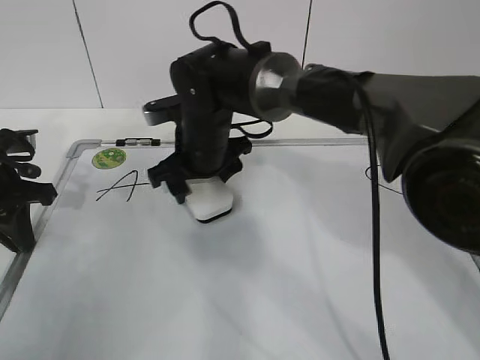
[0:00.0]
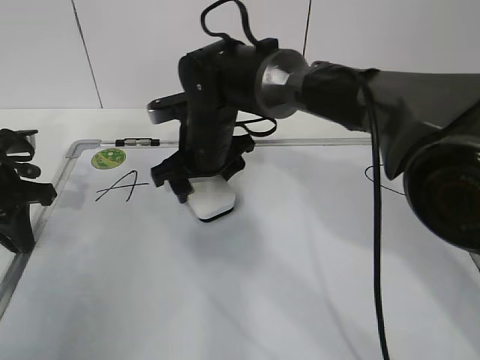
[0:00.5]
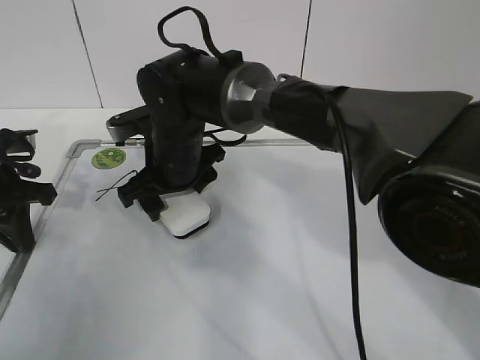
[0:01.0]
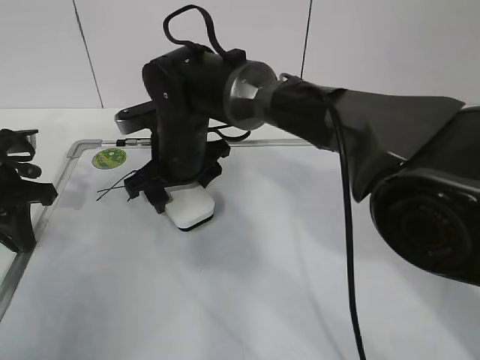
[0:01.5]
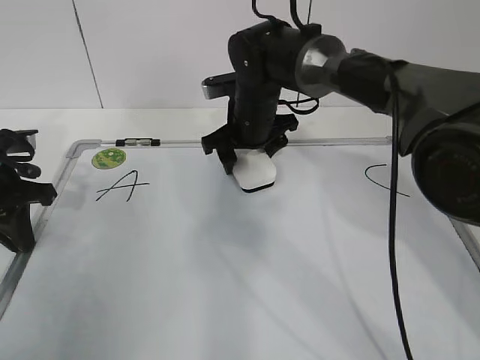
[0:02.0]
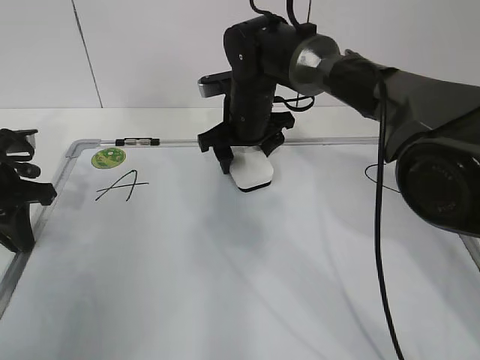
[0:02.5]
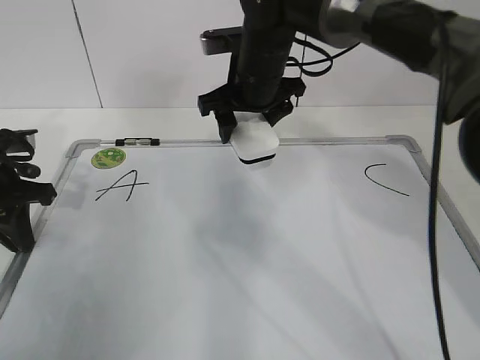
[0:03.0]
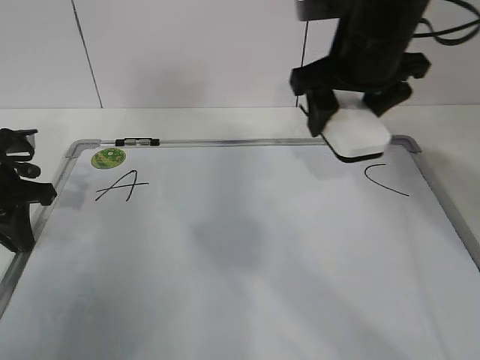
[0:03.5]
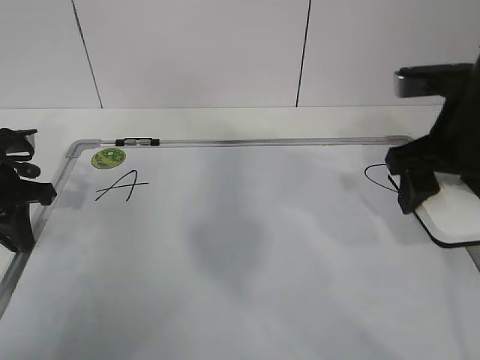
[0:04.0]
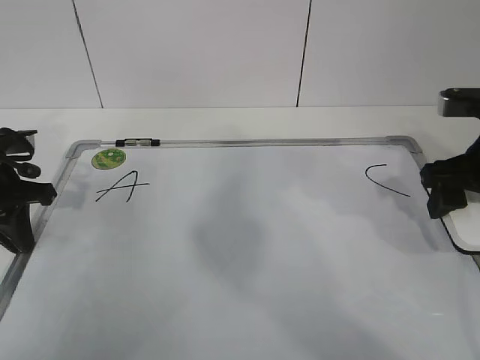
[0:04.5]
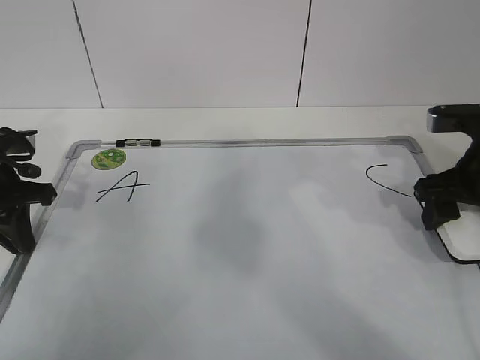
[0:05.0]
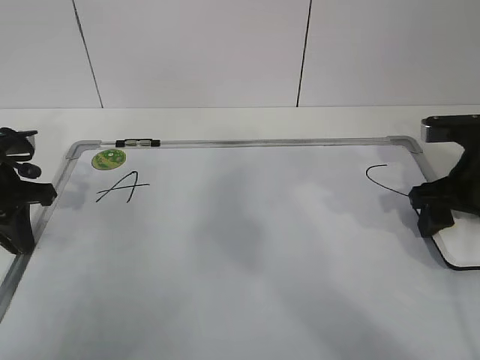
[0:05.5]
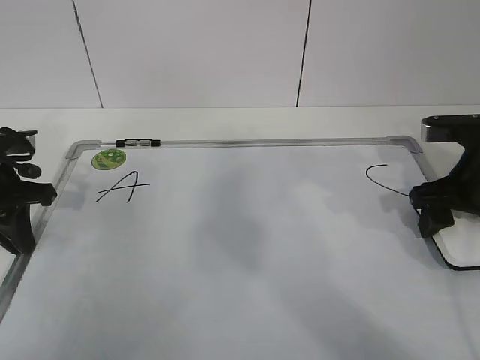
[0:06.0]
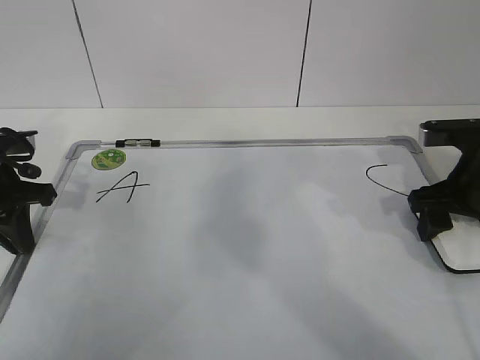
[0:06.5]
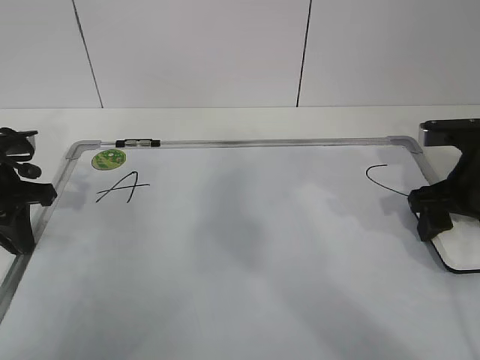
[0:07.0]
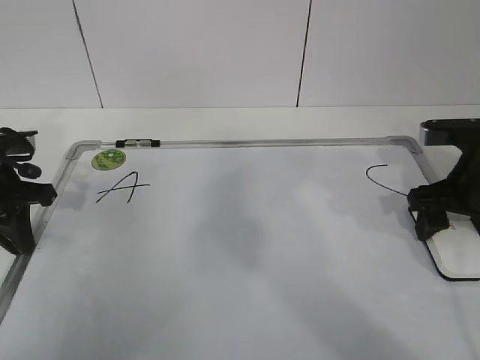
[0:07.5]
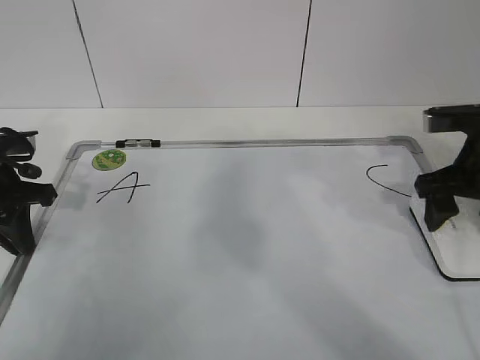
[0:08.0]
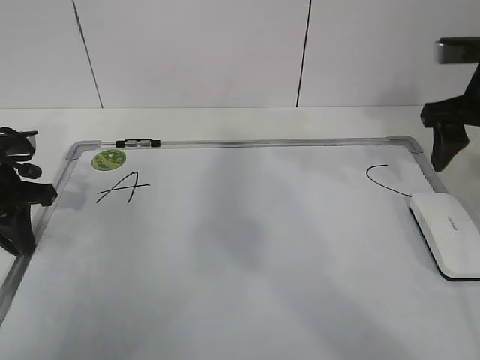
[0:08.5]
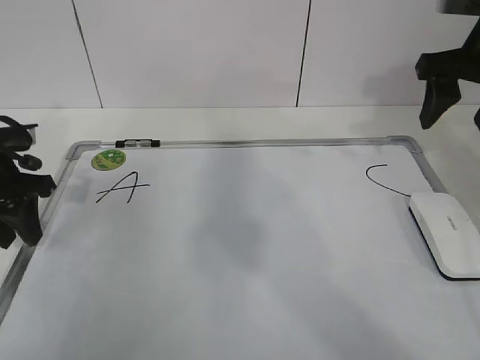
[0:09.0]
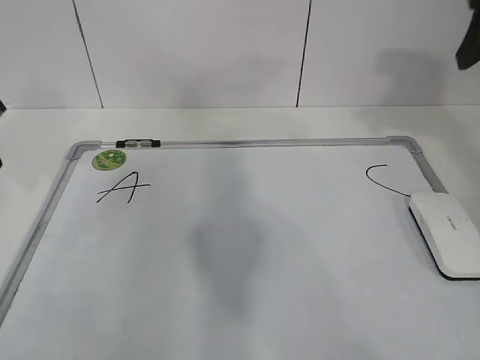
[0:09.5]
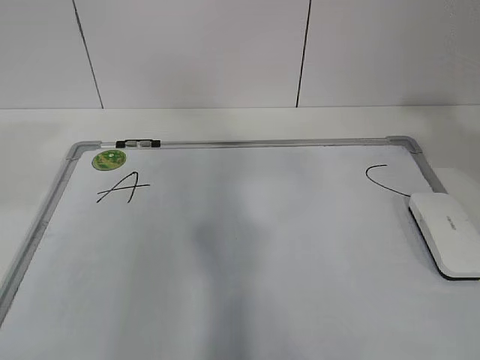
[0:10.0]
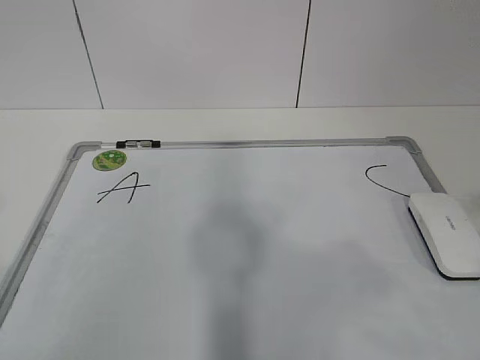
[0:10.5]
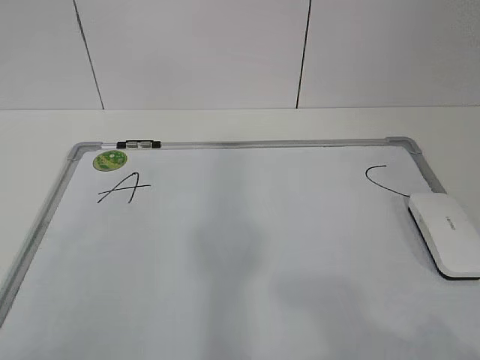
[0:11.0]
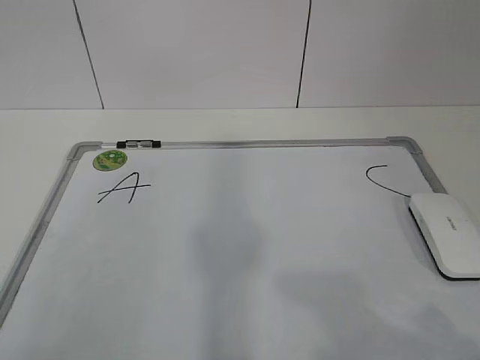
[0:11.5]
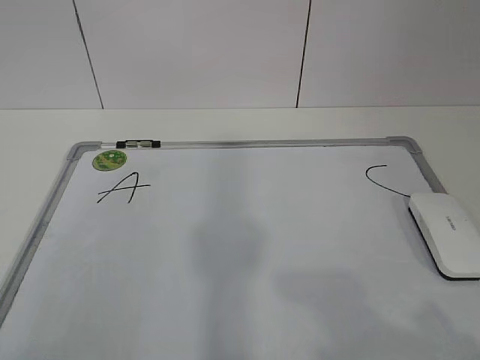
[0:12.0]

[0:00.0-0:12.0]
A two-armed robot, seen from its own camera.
Task of the whole recording: pick up the eraser on the blackboard and erase the letter "B".
Step, 0.0 to 2.0 s: Put down the eraser with your right hand.
0.0 to 2.0 s: The right gripper travels to the right and forward by approximately 10 cm.
2.0 to 4.0 s: The right gripper shifts approximately 25 cm to the right, backward and upward.
4.0 to 6.0 s: The right gripper shifts approximately 10 cm downward and to the right.
6.0 to 8.0 s: The right gripper opens.
8.0 to 10.0 s: The two grippers go approximately 25 cm upward and backward. The left gripper opens. The right gripper closes up.
10.0 to 12.0 s: The right gripper heads downward and backward, covering some 25 cm.

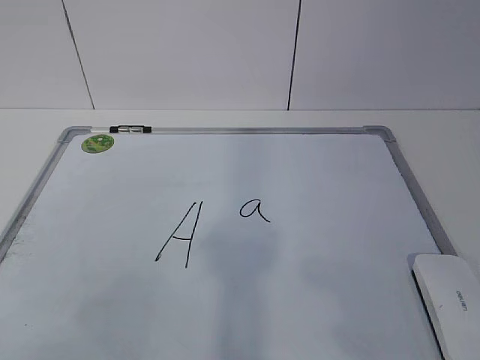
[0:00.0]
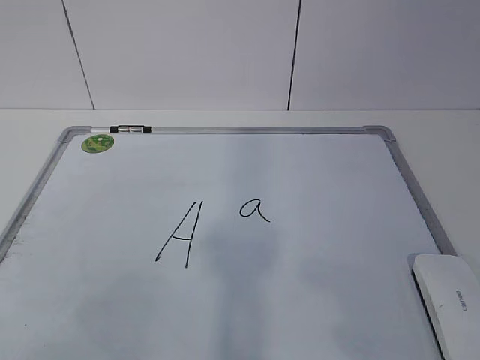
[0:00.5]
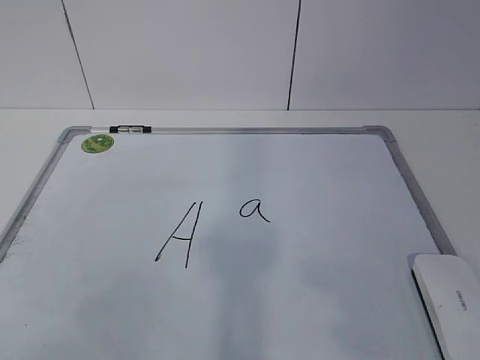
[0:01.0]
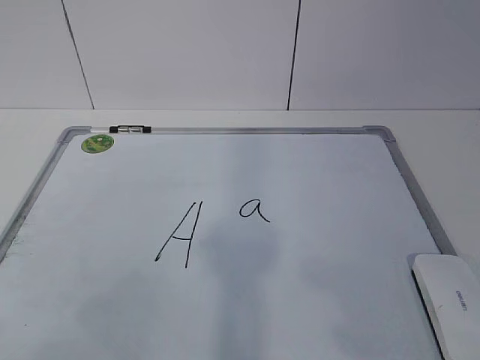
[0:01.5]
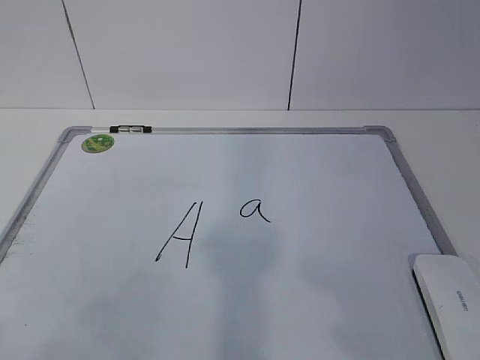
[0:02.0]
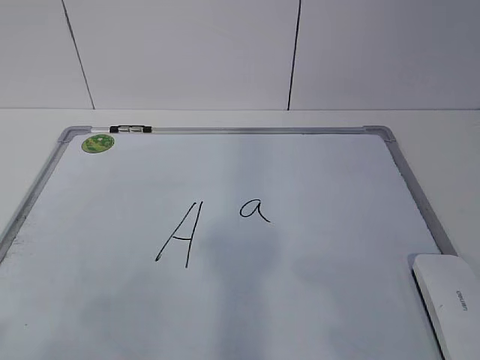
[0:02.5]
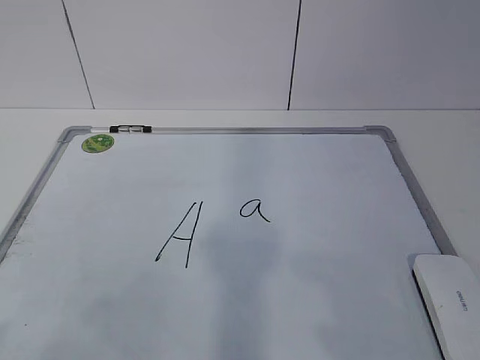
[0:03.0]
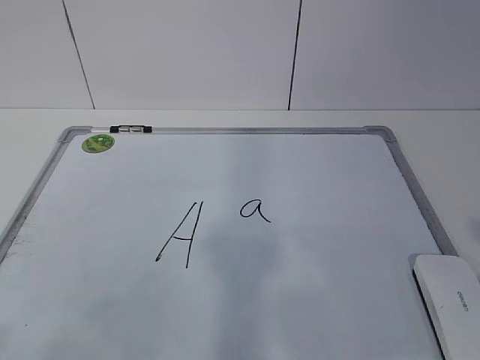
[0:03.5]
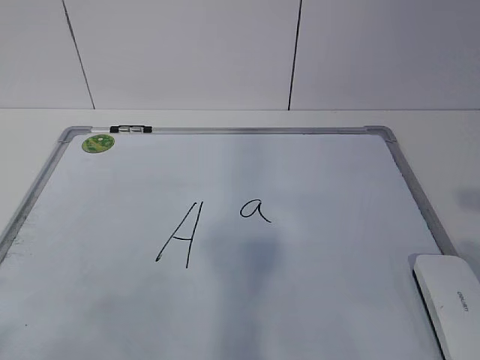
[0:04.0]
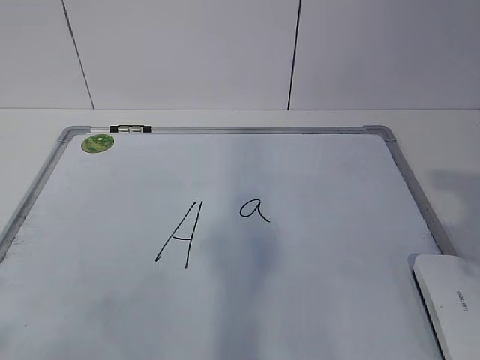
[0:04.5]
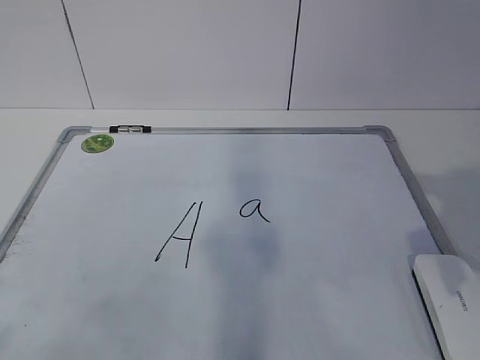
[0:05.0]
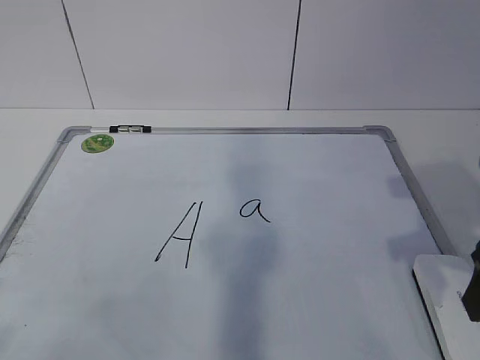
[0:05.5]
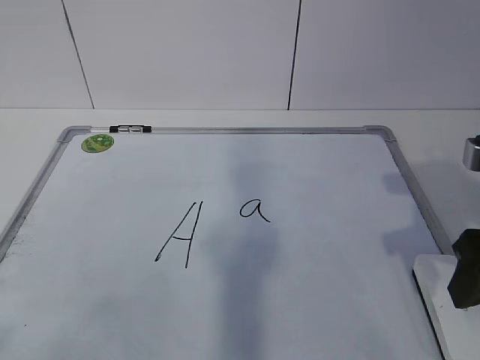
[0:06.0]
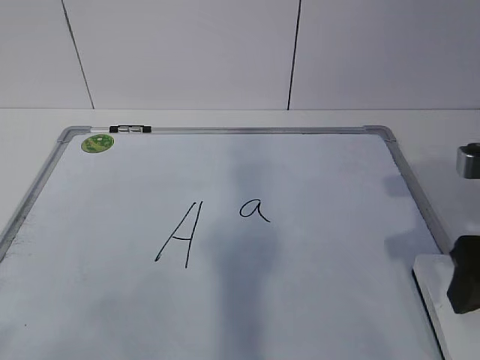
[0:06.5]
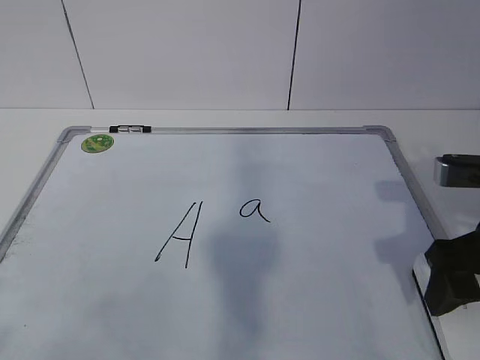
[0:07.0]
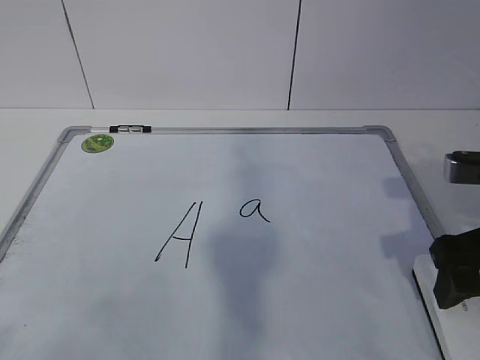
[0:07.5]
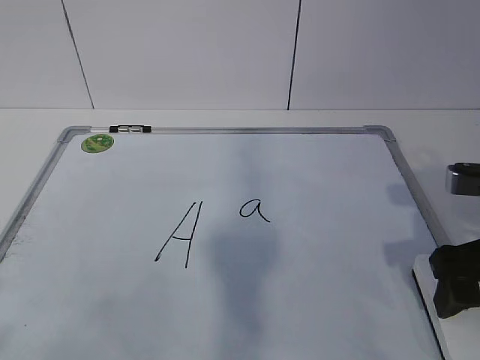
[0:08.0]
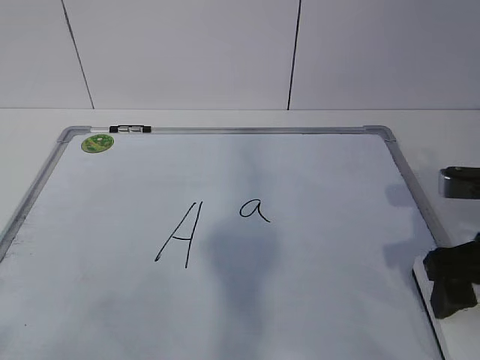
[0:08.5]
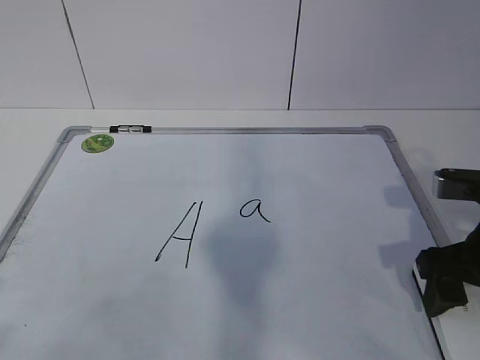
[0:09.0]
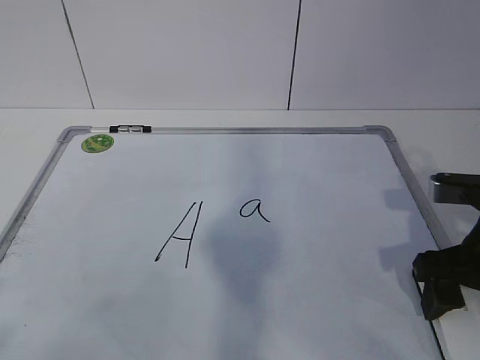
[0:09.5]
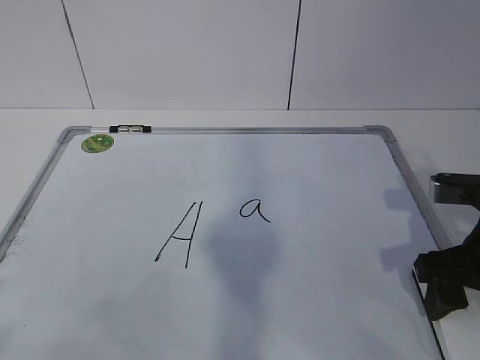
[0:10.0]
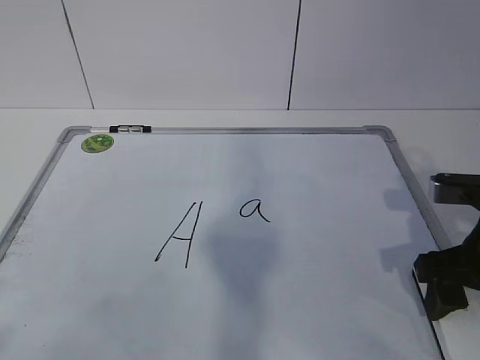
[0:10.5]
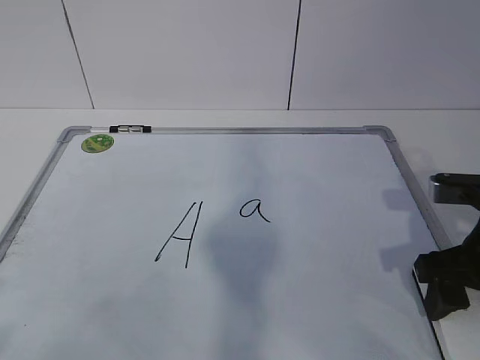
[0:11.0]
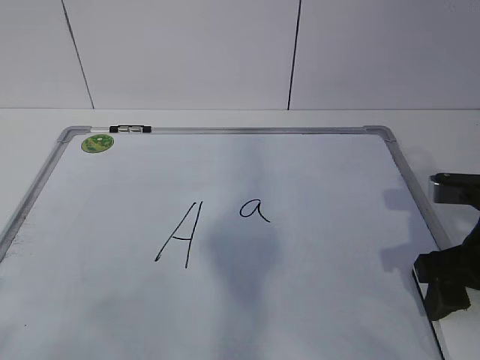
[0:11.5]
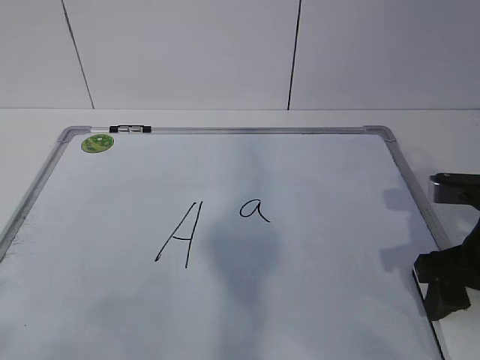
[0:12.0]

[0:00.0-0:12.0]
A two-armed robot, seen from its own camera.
Task of the whole recording: pick up the eraser on the blackboard and erase the letter "a".
Step, 0.0 to 8.0 s: Grab the eraser with your right hand.
4.0 to 6.0 s: The right gripper travels forward and downward by roughly 15 cm.
6.0 to 8.0 s: The right gripper opens up.
8.0 to 10.0 s: The right gripper closes.

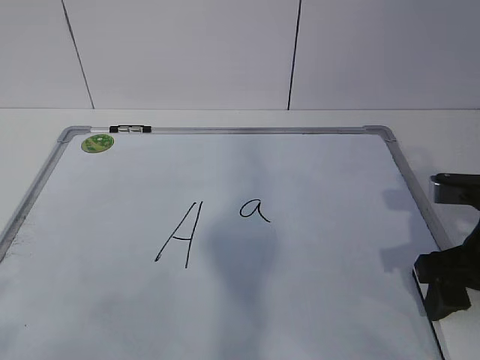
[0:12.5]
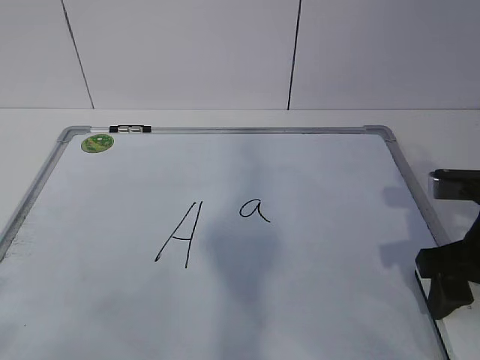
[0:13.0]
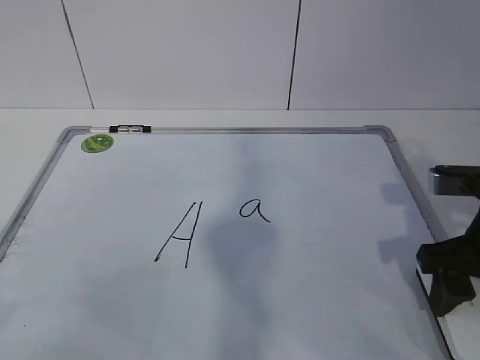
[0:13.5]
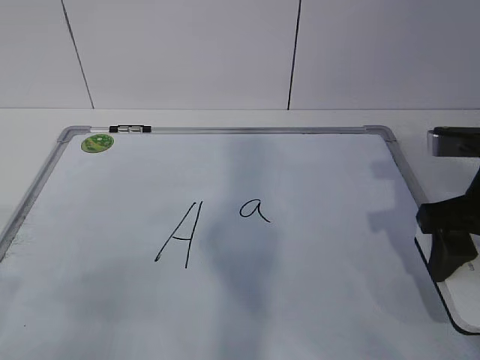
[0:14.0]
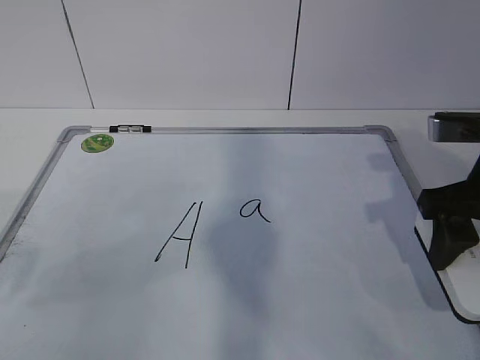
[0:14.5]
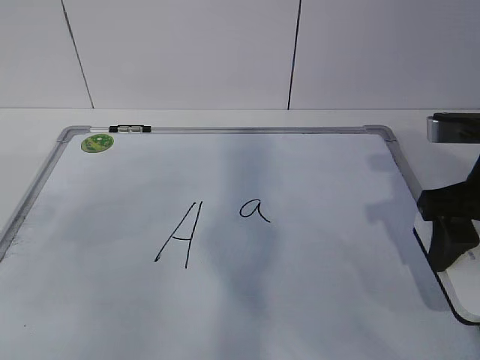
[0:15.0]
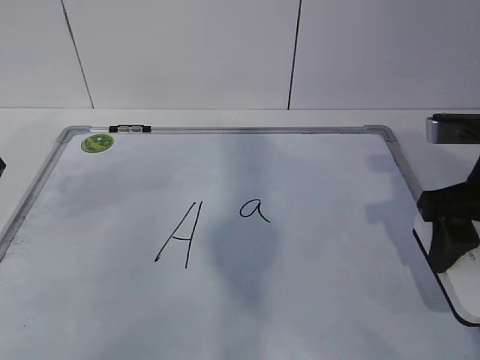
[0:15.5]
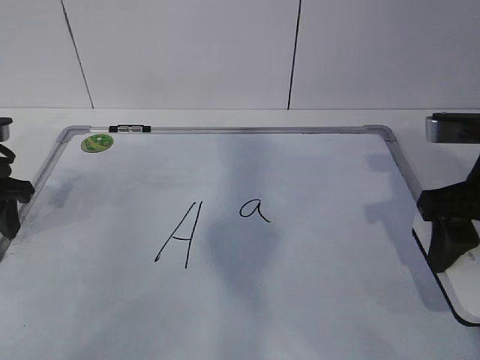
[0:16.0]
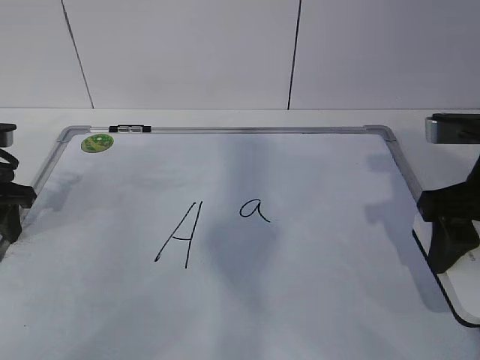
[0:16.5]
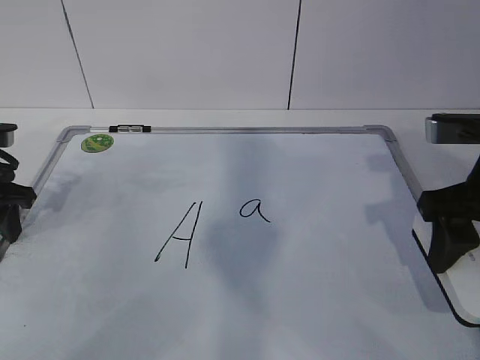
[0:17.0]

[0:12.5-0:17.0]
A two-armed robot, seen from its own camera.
Task of the whole recording: pick up the eraser on the blackboard and erase the letter "a".
Step, 12.5 to 16.5 s: Hold the drawing board steady with your left hand.
12.5 to 14.5 s: The right gripper heads upward, covering roughly 5 cm.
14.5 to 17.0 s: The left gripper is displaced forward and downward by about 25 cm.
